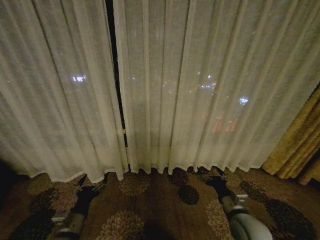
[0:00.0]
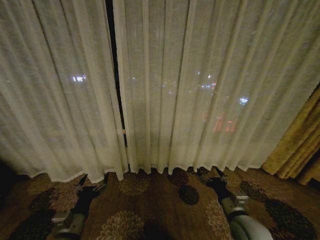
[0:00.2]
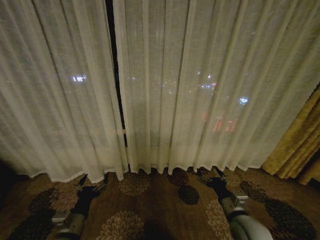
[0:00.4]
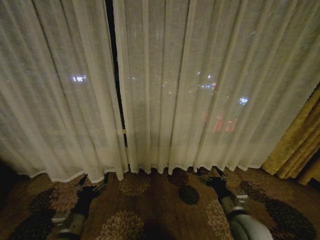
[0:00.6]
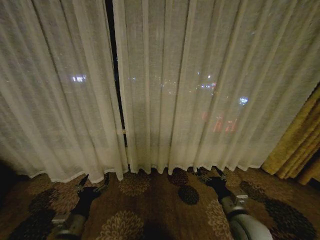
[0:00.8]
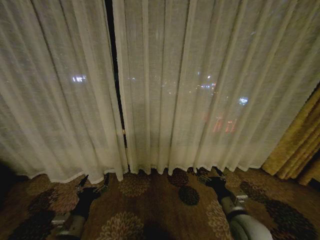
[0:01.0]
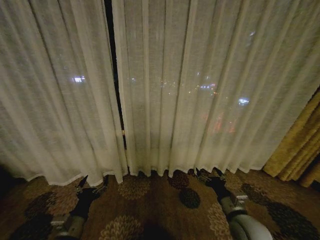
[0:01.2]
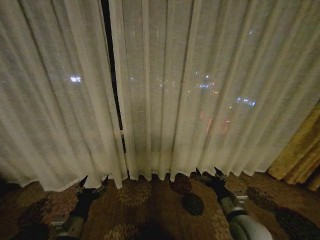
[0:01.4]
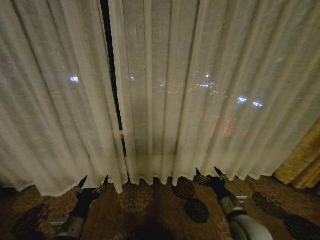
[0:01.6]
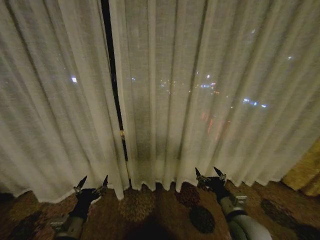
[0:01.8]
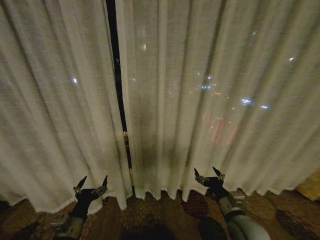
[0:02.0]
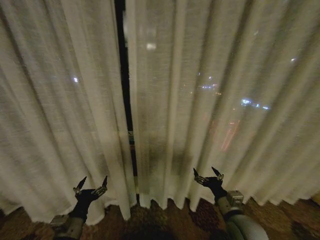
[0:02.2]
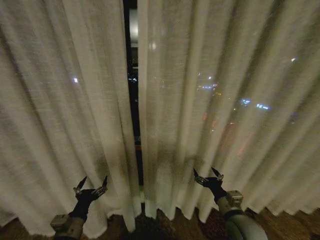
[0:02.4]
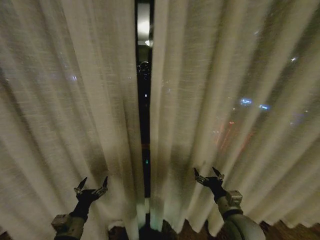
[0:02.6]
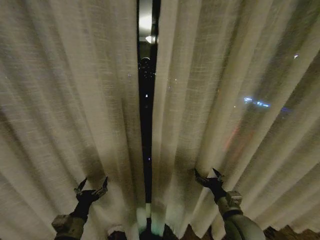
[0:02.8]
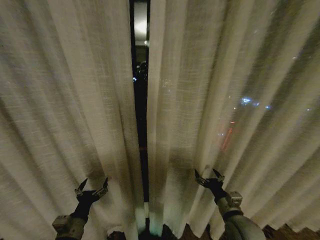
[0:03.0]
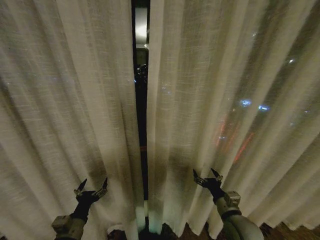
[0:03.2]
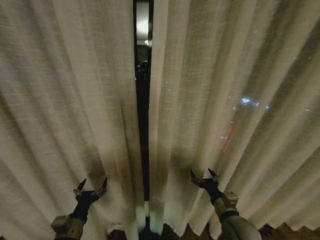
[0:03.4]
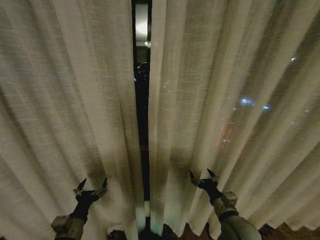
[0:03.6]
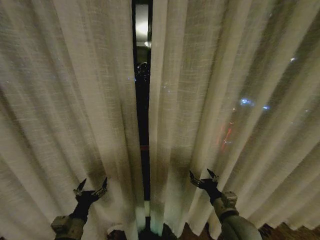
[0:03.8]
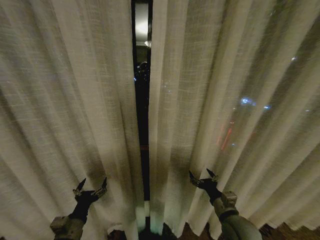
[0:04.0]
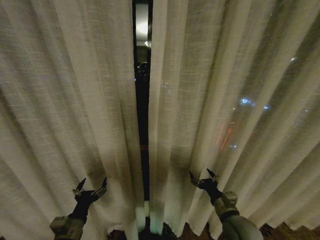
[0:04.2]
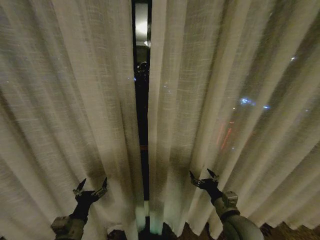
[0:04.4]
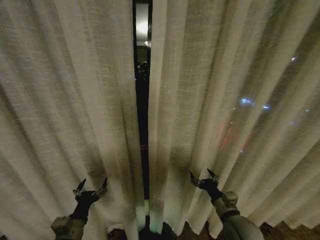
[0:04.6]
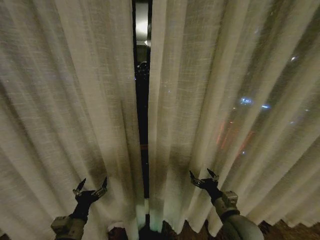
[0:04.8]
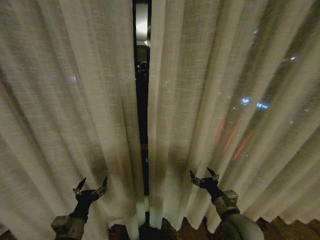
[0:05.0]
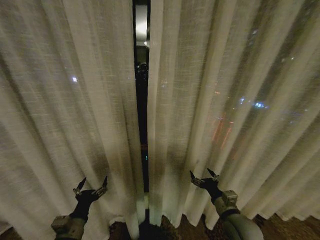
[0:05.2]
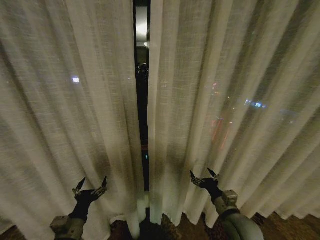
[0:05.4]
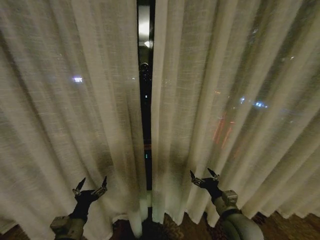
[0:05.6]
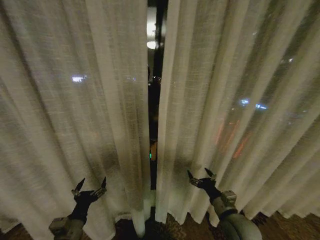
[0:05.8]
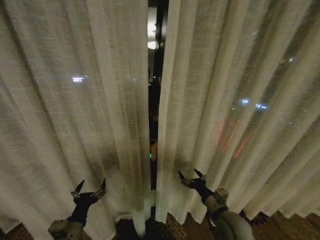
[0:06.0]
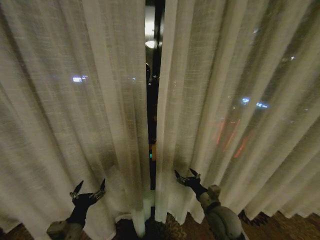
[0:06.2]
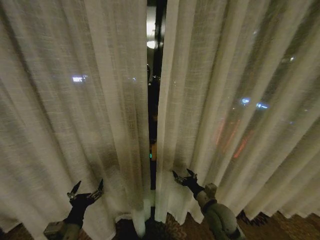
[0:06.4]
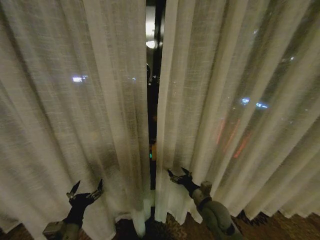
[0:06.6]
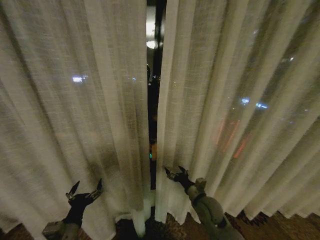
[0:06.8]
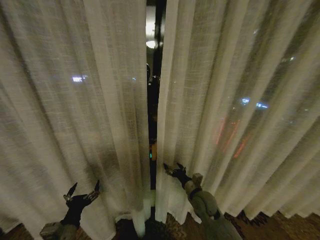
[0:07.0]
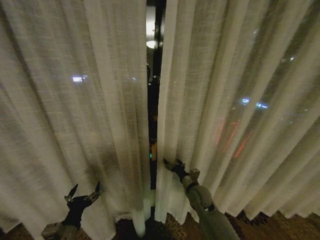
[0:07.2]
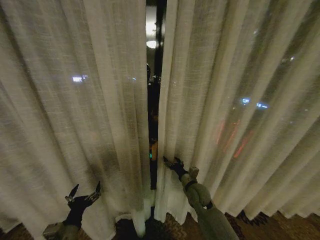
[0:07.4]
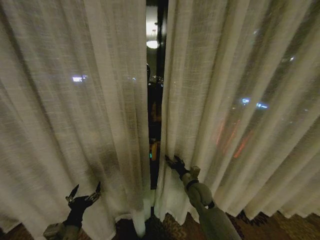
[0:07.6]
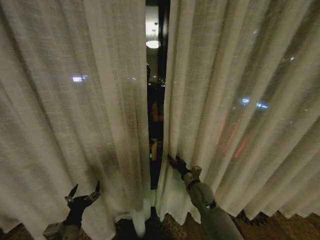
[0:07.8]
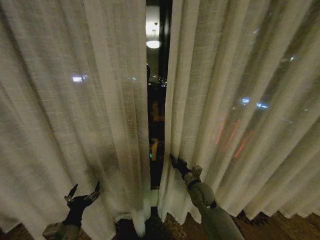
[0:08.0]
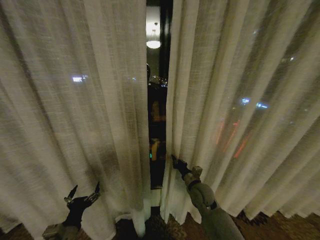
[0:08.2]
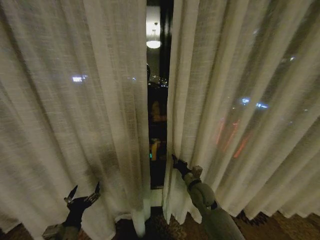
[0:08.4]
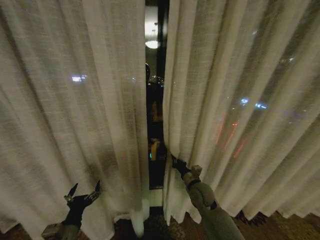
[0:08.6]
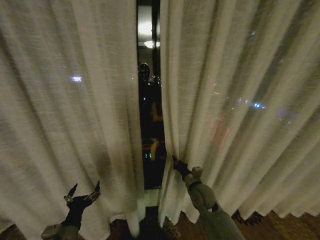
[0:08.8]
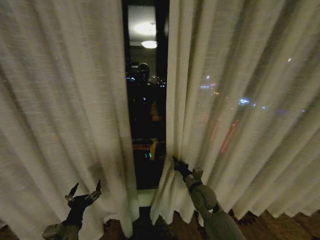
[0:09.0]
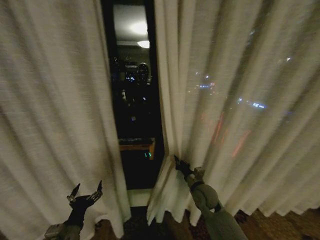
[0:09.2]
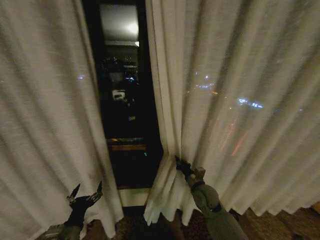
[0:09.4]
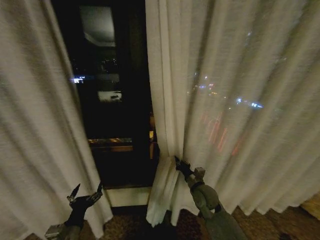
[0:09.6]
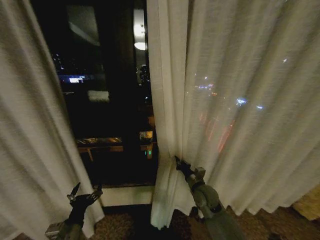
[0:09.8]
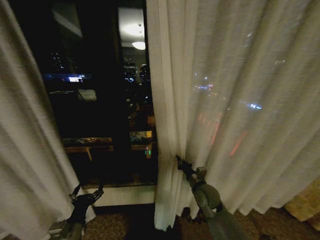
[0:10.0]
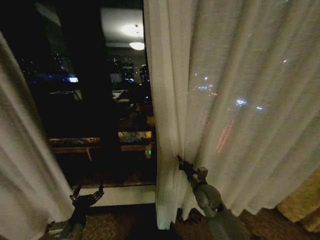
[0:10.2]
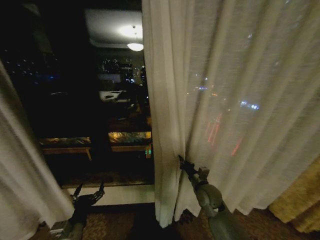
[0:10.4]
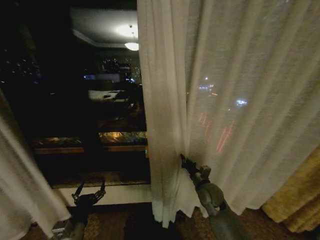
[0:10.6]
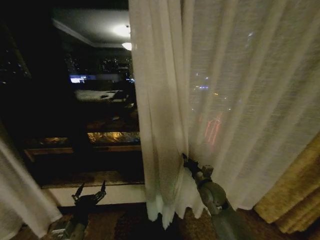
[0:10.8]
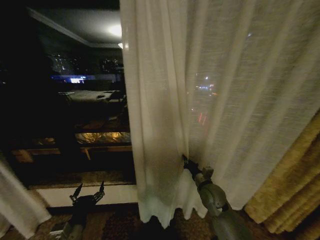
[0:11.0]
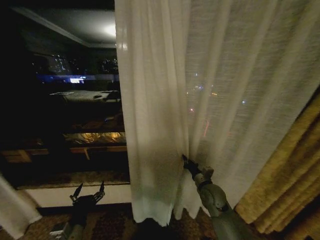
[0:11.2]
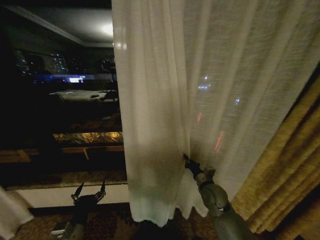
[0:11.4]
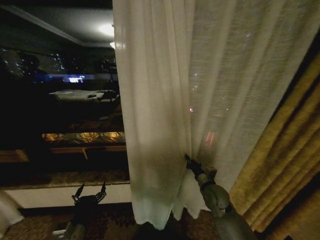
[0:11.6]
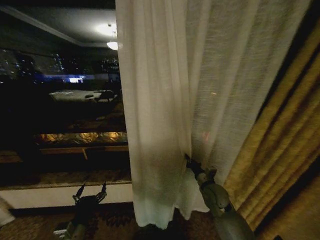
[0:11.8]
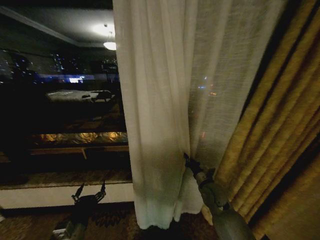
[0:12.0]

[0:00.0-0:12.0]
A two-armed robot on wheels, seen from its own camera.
Task of the whole recording: Open the curtains by pulling them apart, changing their state from closed to fully open.
0:03.0 to 0:04.4: The grippers move only a little.
0:06.0 to 0:07.6: The right gripper goes roughly 15 cm forward and to the left.
0:07.6 to 0:09.0: The right gripper closes its fingers.

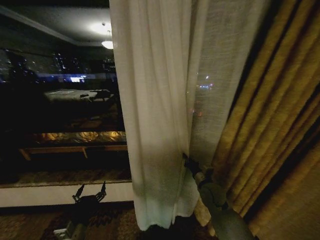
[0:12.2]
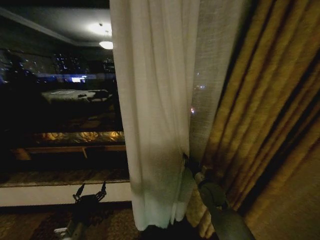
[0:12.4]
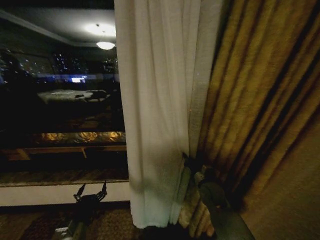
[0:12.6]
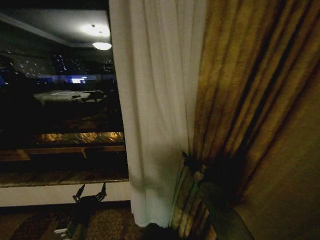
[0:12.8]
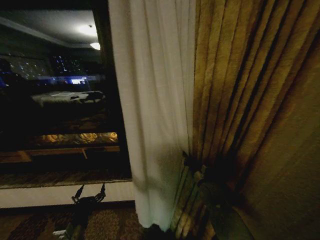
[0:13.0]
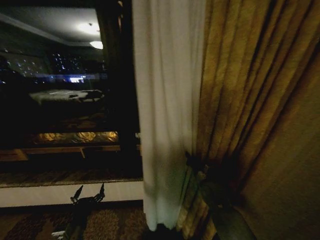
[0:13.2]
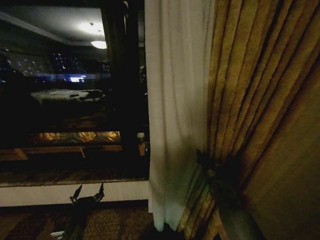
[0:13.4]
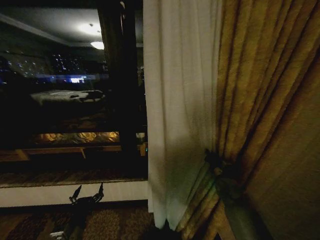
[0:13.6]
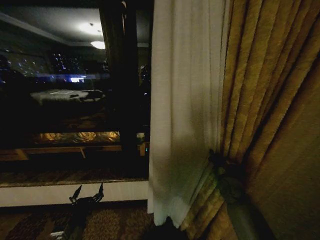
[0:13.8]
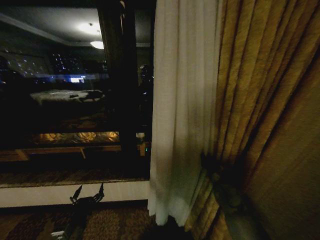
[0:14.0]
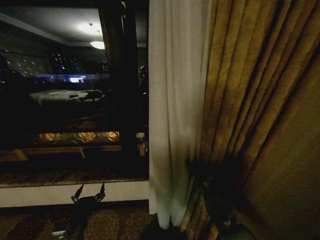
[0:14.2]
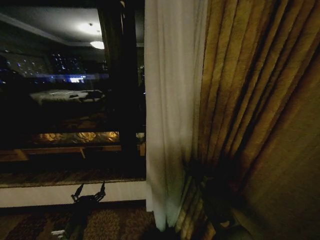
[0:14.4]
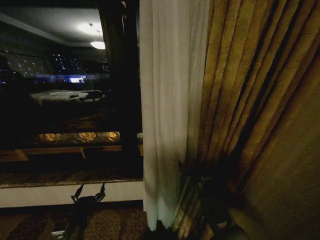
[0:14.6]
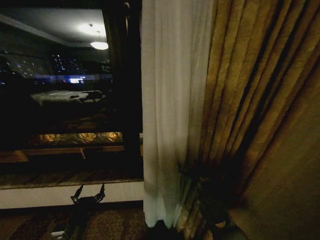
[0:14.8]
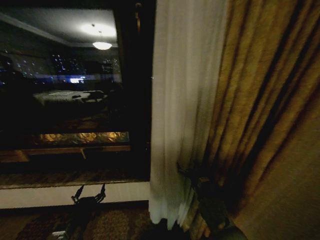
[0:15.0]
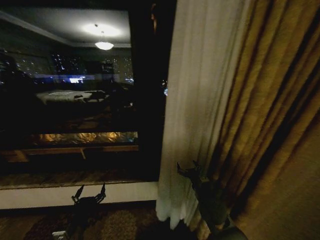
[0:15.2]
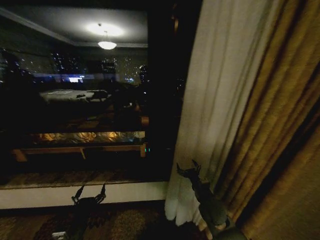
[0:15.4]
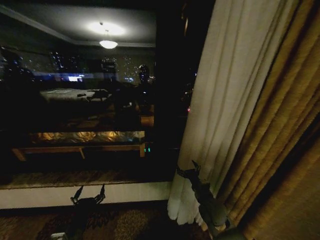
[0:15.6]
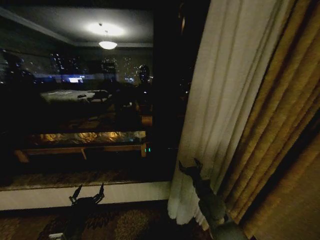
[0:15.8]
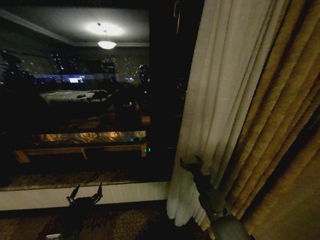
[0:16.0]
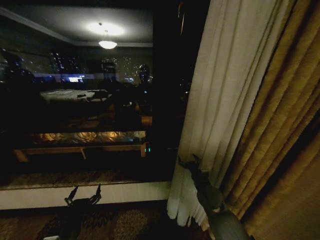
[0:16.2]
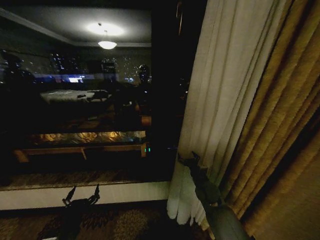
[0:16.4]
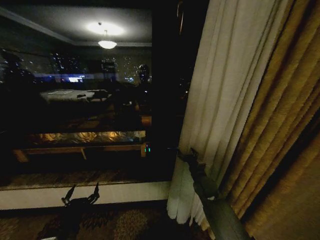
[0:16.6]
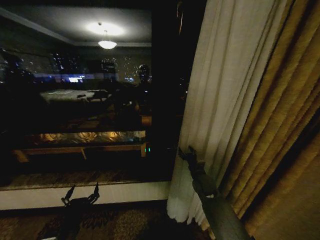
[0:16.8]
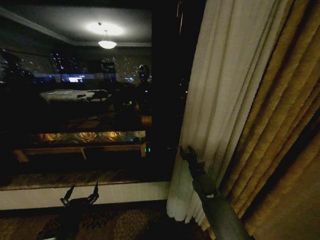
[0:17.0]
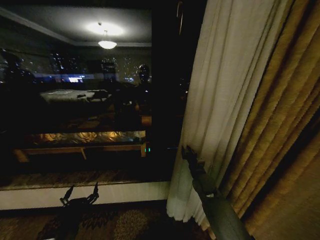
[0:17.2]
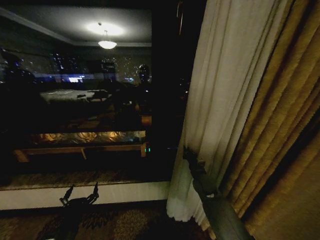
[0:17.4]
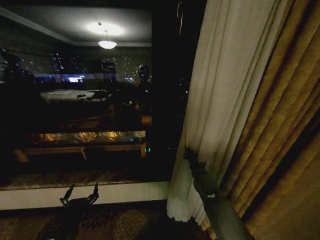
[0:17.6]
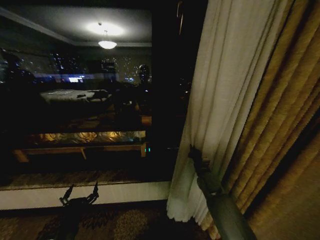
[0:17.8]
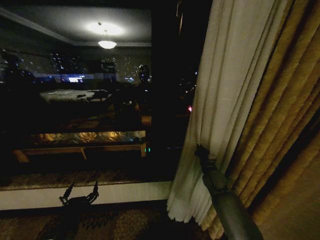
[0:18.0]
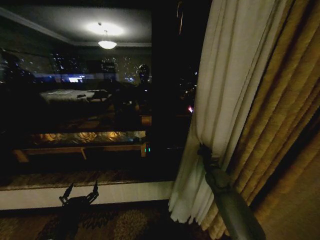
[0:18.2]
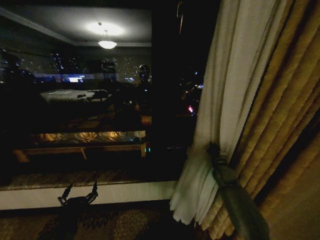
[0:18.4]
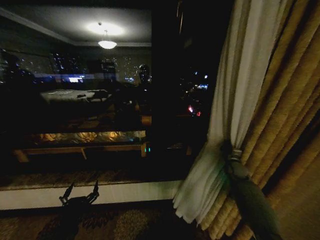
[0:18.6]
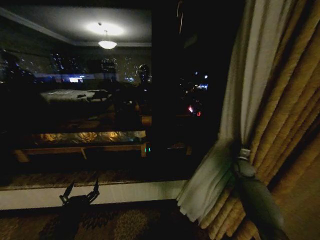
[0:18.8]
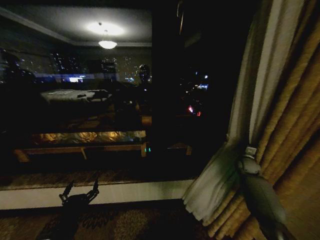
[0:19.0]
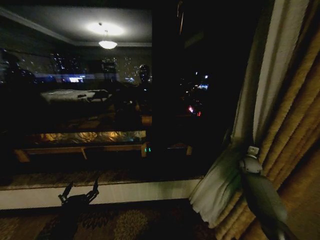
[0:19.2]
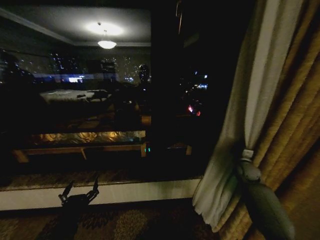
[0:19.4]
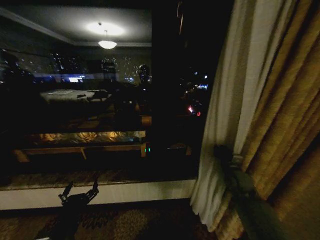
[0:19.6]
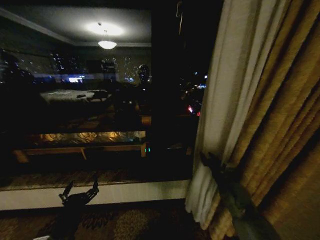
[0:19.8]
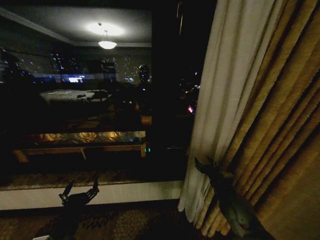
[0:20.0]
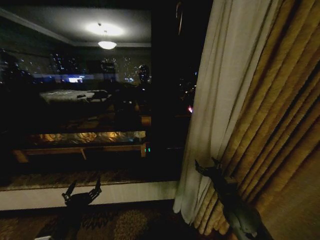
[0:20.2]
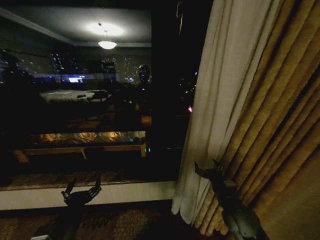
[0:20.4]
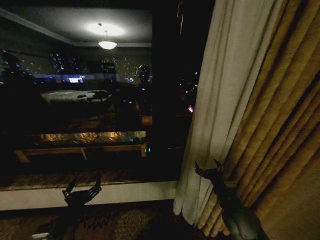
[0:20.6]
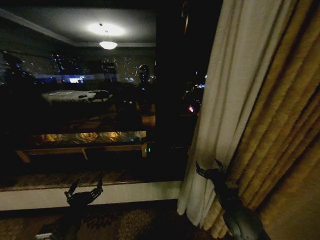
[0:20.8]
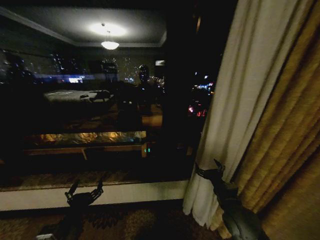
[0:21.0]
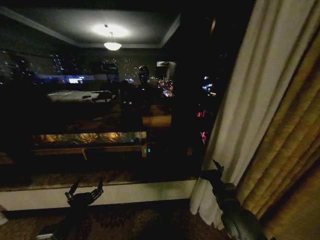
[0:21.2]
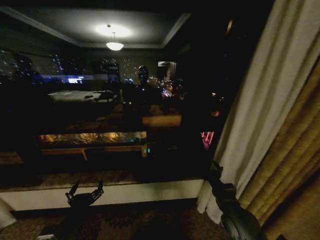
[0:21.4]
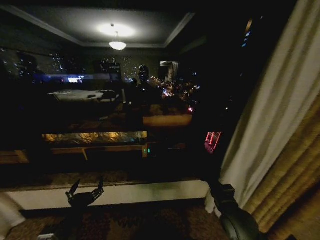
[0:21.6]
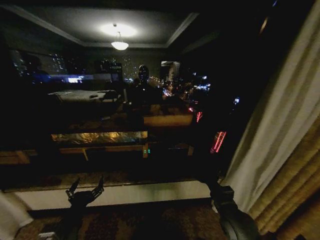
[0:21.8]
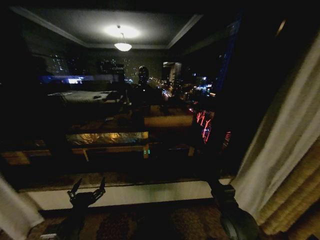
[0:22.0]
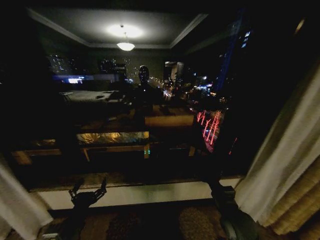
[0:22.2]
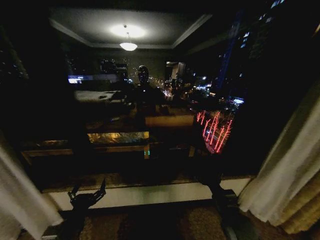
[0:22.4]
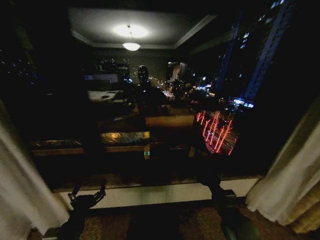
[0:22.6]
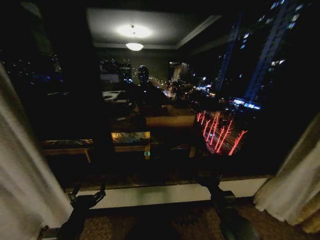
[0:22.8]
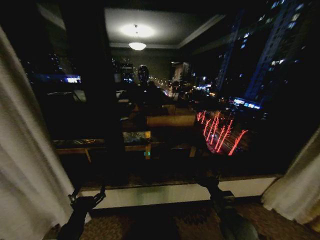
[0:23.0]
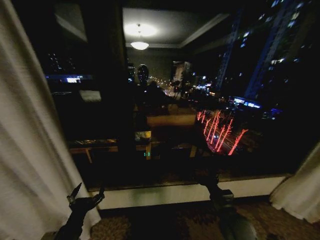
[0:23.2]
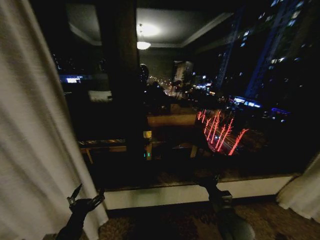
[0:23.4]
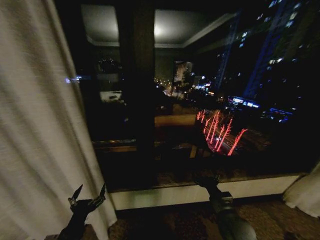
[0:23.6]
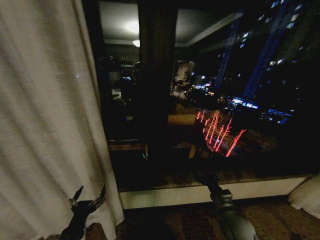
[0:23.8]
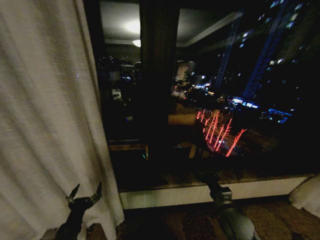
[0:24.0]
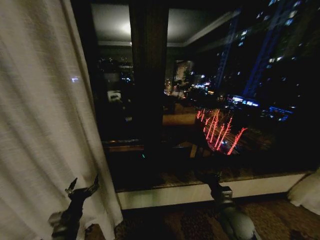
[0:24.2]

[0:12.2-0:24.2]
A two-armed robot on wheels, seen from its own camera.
Task of the whole recording: Open the curtains by pulling them apart, changing their state from closed to fully open.
0:12.2 to 0:13.8: The right gripper heads to the right, covering approximately 10 cm.
0:13.8 to 0:15.2: The right gripper goes roughly 15 cm to the left and backward, and opens its fingers.
0:15.2 to 0:16.6: The right gripper travels forward by approximately 10 cm.
0:16.6 to 0:18.2: The right gripper heads to the right, covering approximately 5 cm, and closes.
0:18.2 to 0:19.8: The right gripper travels backward by some 10 cm, reaches some 20 cm to the right, then returns, and opens up.
0:19.8 to 0:21.2: The right gripper moves backward, some 10 cm, and opens.
0:22.6 to 0:24.2: The left gripper moves forward, roughly 5 cm.
